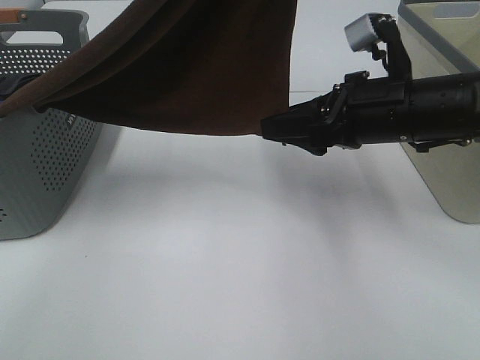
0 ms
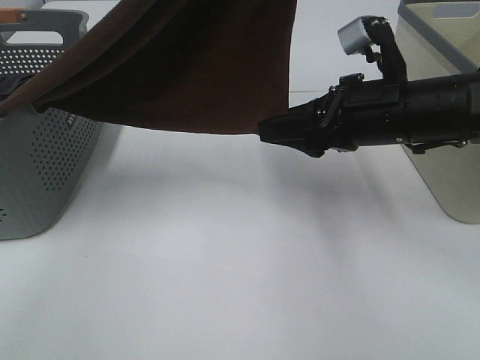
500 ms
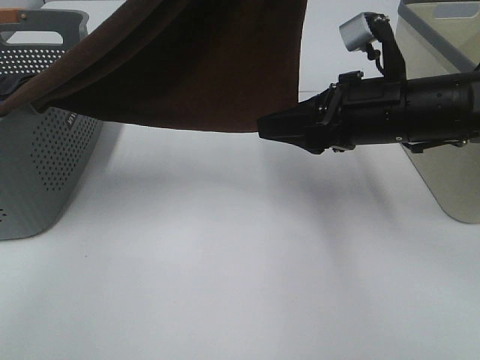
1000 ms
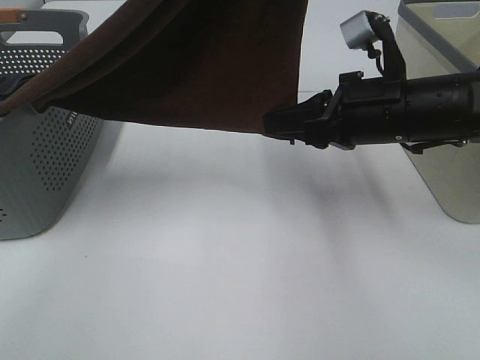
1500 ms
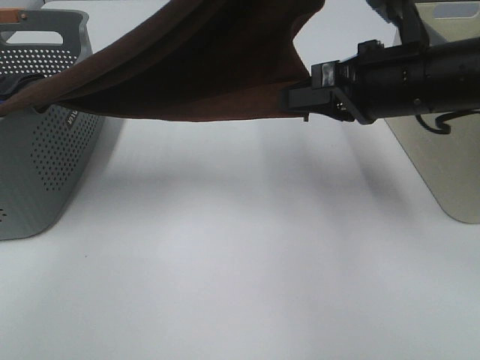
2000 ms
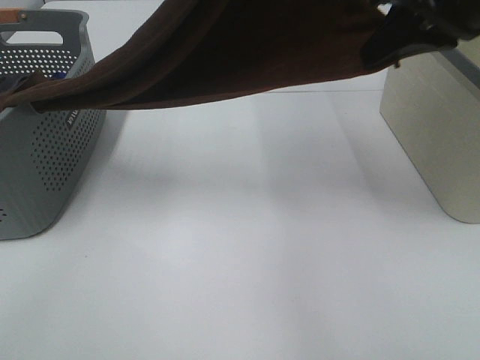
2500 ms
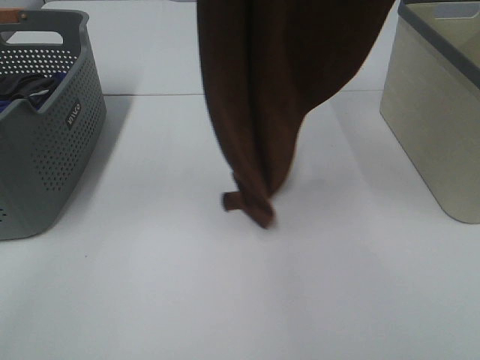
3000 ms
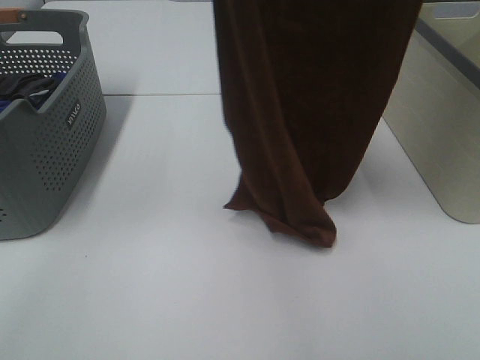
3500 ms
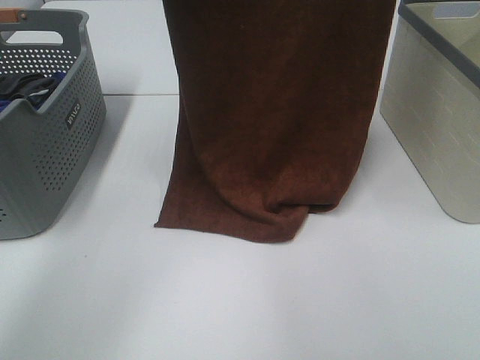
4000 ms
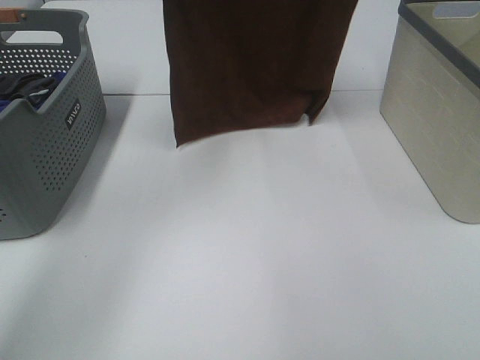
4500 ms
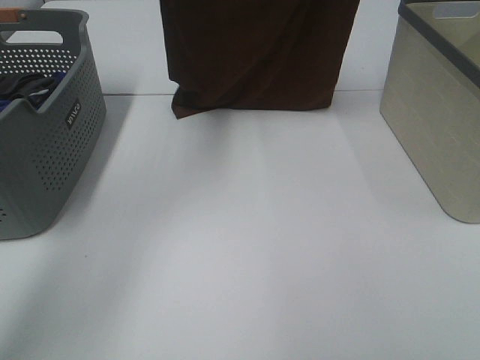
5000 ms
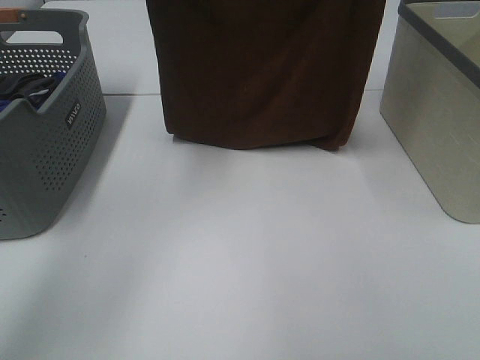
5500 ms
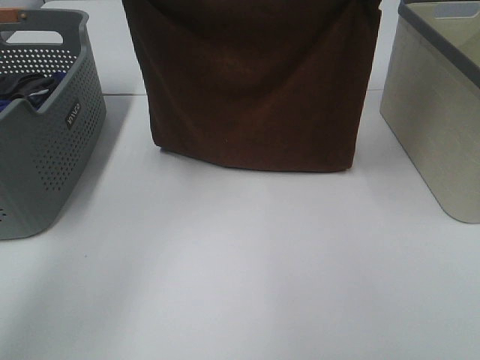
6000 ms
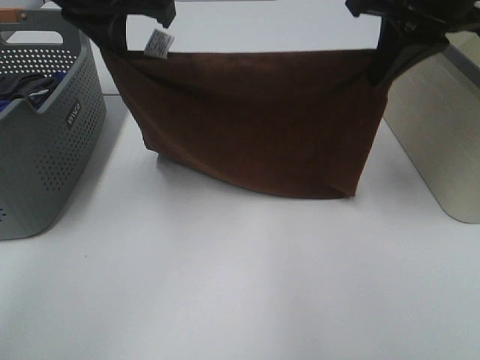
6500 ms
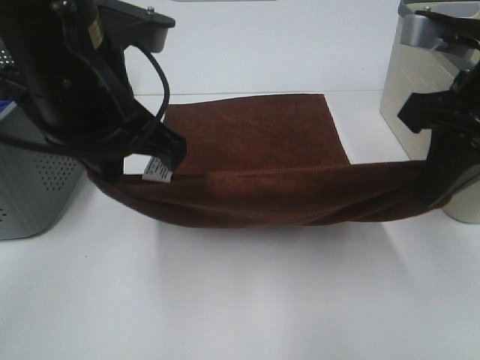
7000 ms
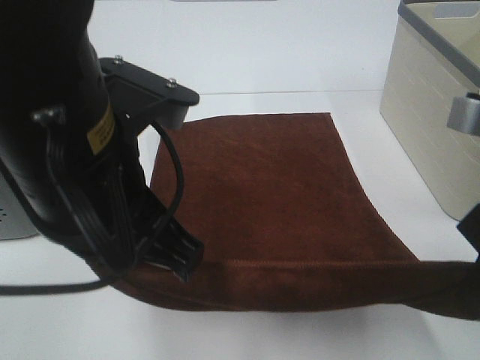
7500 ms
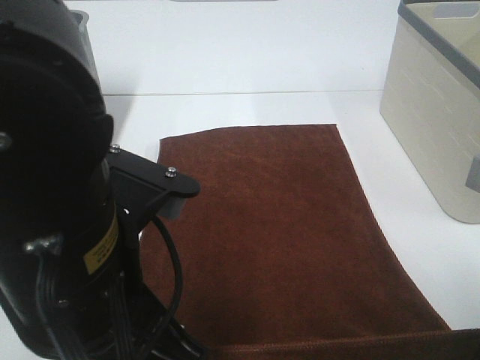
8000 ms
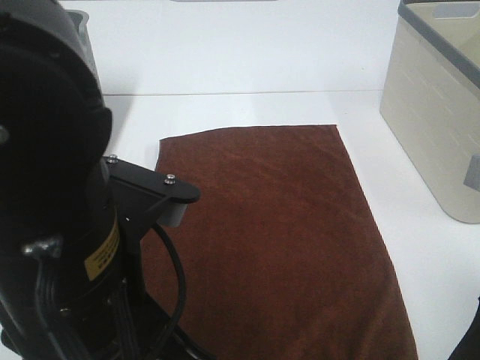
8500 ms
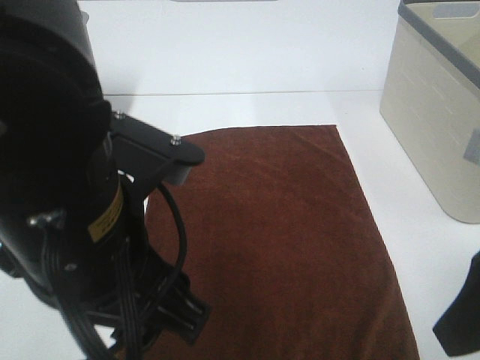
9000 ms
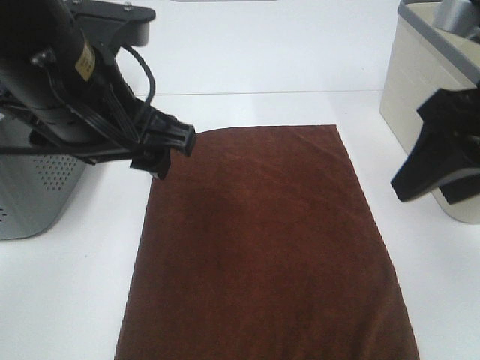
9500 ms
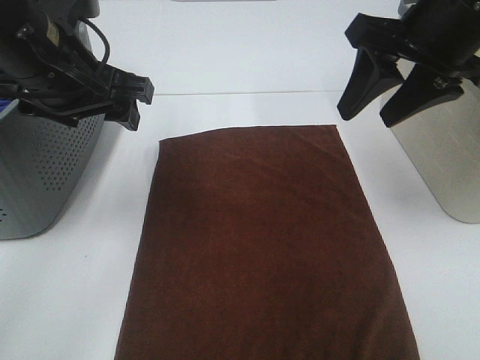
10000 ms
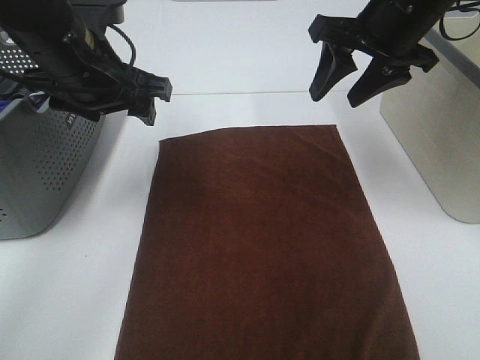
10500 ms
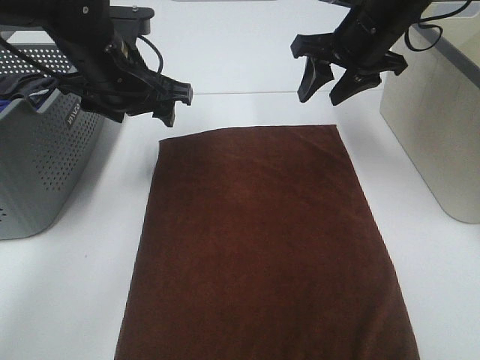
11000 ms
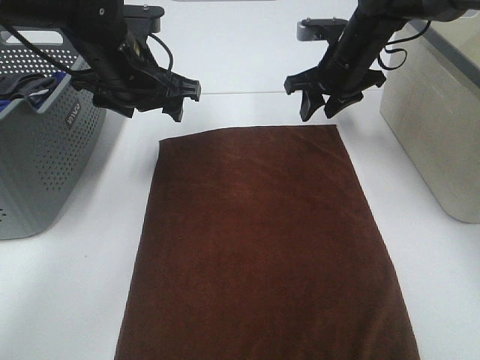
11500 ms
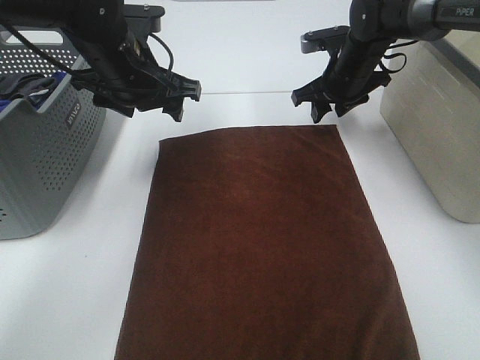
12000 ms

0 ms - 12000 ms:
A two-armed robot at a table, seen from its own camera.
Task of the whole recording: Remove the towel and place it.
Step, 1000 ms - 4500 ms: Left hand: spread the brown towel flat on the table.
Step, 1000 ms - 4500 ms: Right hand: spread the brown towel flat on the table.
0 ms - 2000 ms: The right gripper closes its fingers.
2000 ms - 4000 ms: The right gripper moves upward and forward, approximately 25 cm, while the left gripper heads to the left and forward, covering roughly 20 cm.
4000 ms - 6000 ms: Both grippers travel together downward, about 10 cm.
6000 ms - 8000 ms: The grippers both shift backward and downward by some 30 cm.
8000 ms - 10000 ms: The left gripper moves forward and to the left, some 20 cm, and opens up. Meanwhile the right gripper travels forward by roughly 20 cm, and opens up.
10000 ms - 12000 ms: The left gripper travels forward by approximately 10 cm. Meanwhile the right gripper heads forward and downward, covering approximately 25 cm.

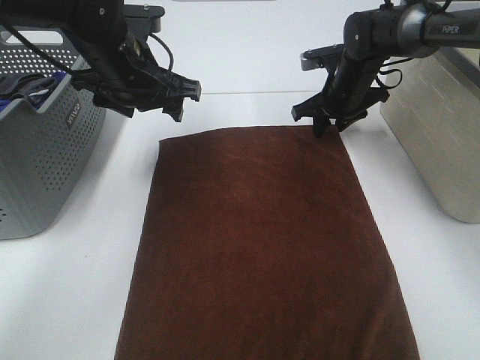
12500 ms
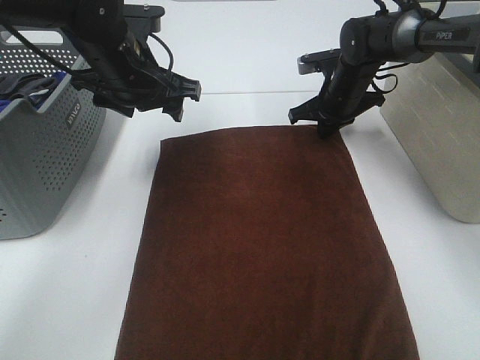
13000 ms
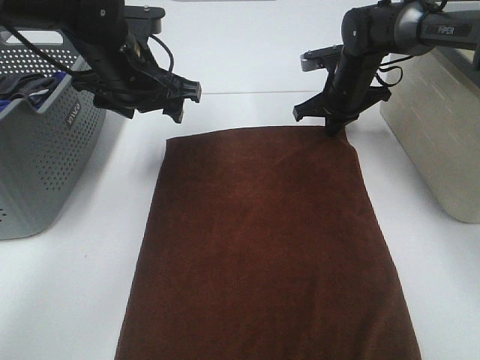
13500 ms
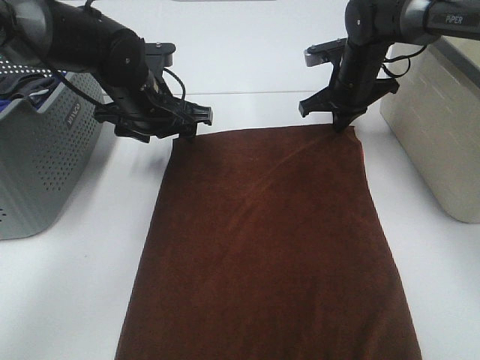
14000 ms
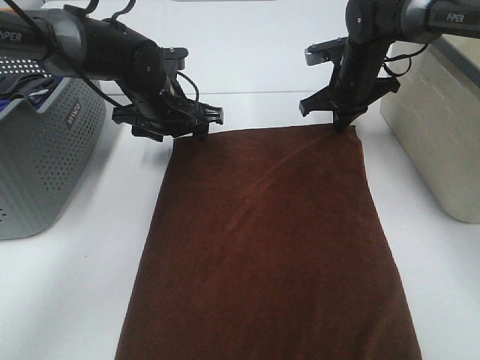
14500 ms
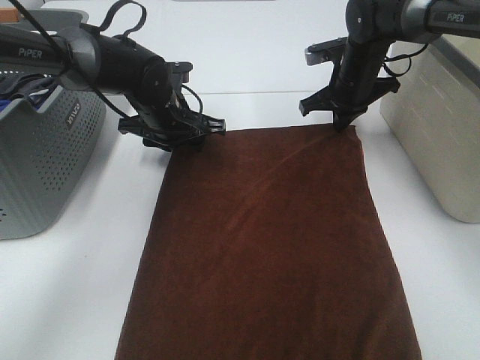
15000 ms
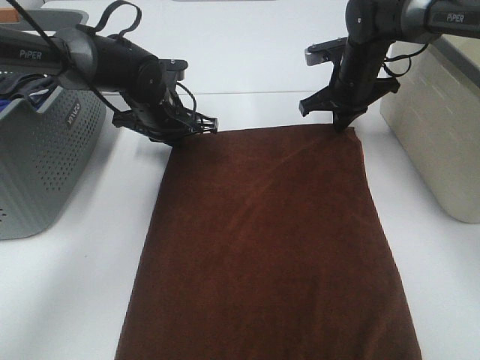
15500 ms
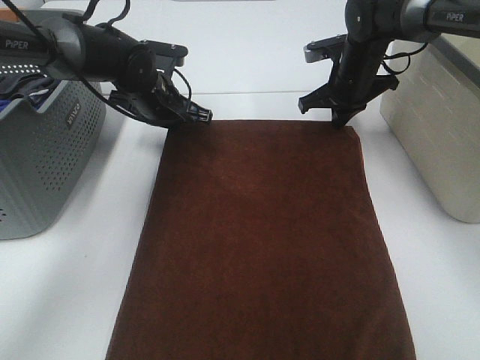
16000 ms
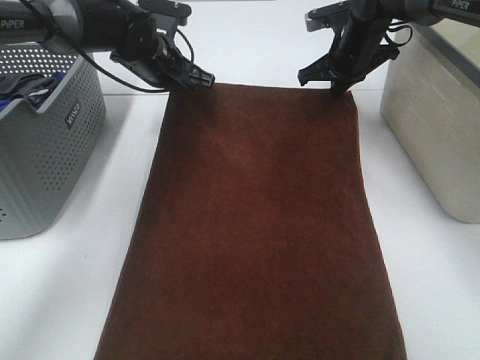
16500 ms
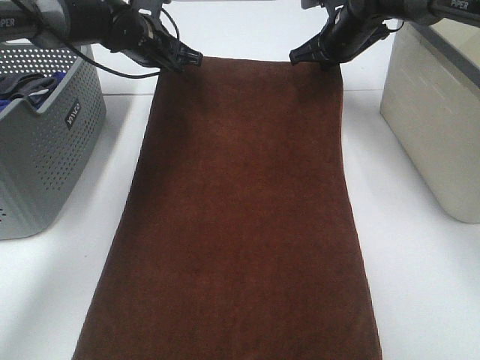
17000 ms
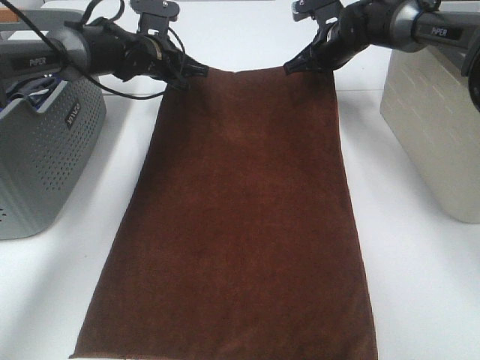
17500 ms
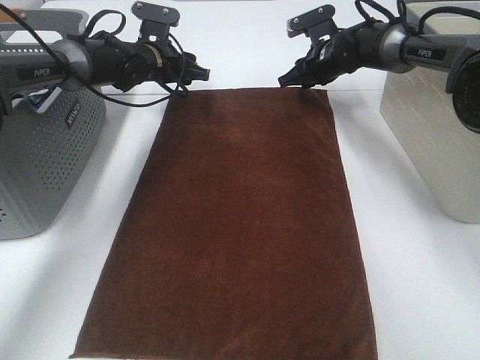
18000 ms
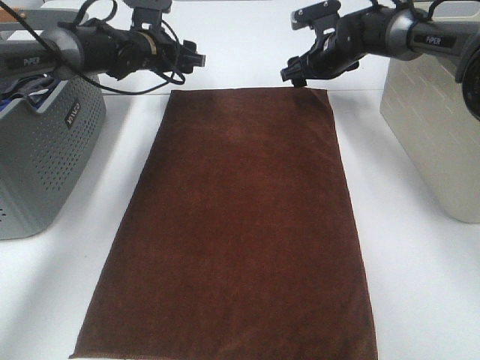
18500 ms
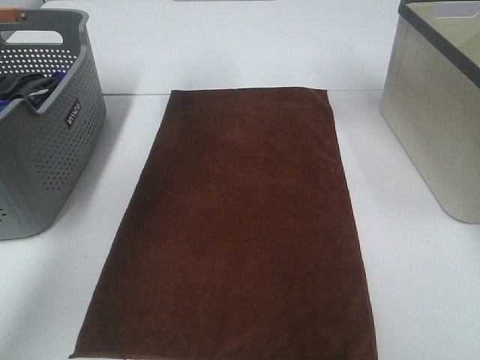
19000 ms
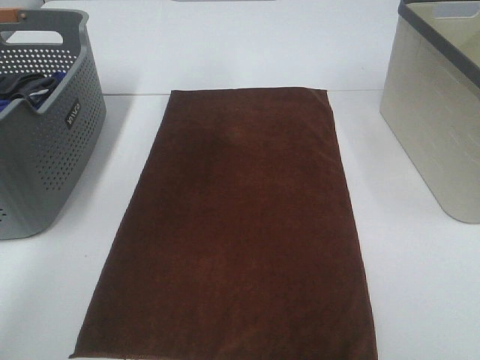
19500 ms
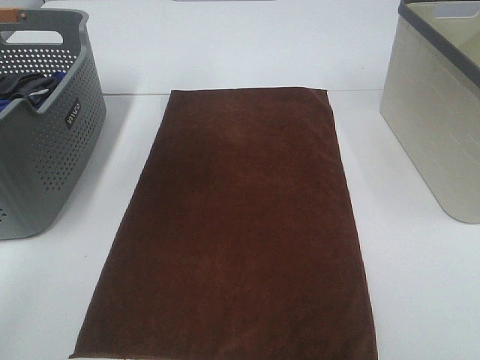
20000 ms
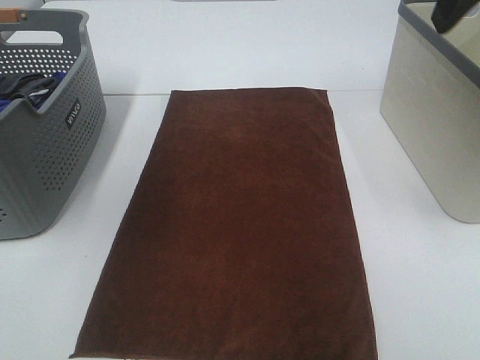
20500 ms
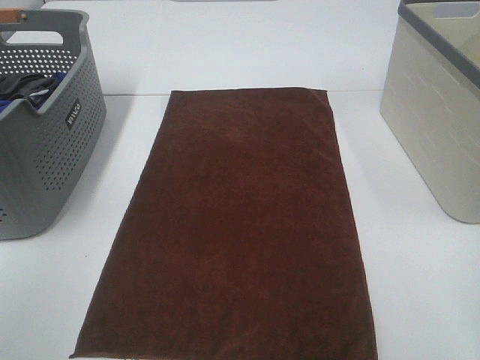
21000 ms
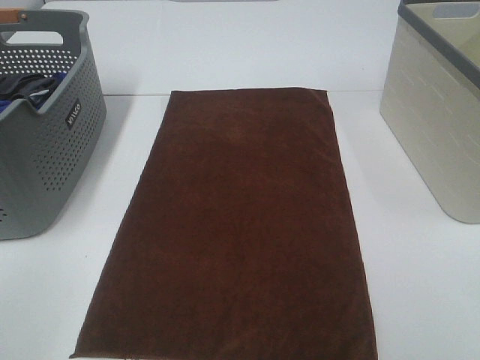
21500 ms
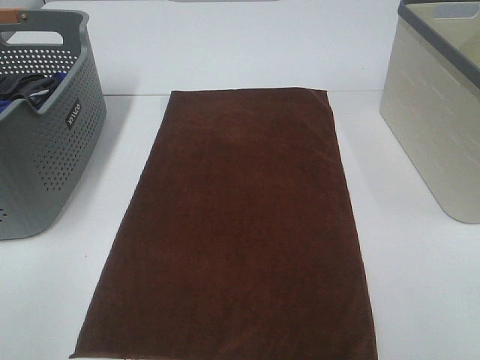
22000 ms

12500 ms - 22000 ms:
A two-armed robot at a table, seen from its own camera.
Task of the whole recording: Remove the towel and place it.
12500 ms - 14500 ms: The left gripper is displaced downward by approximately 10 cm. Meanwhile the right gripper closes.
14500 ms - 16500 ms: The left gripper goes about 5 cm forward, and closes up.
16500 ms - 18000 ms: The right gripper changes place by roughly 5 cm, and opens; the left gripper moves forward, approximately 5 cm, and opens its fingers.
18000 ms - 20000 ms: Both grippers move upward and backward, some 35 cm.
20000 ms - 22000 ms: The left gripper travels backward and downward by roughly 35 cm.

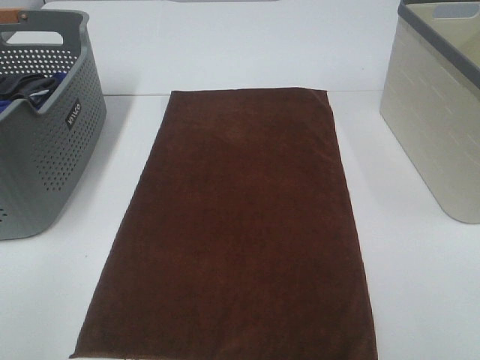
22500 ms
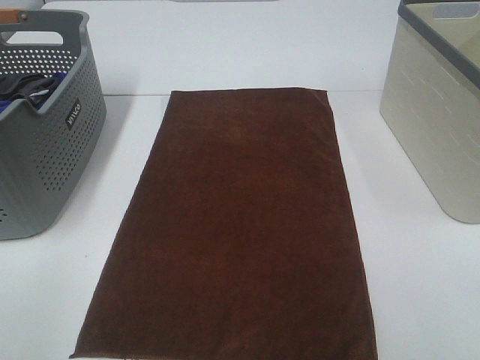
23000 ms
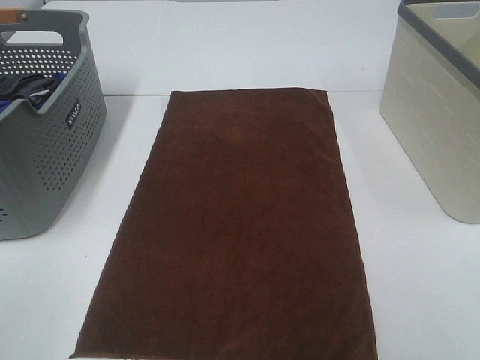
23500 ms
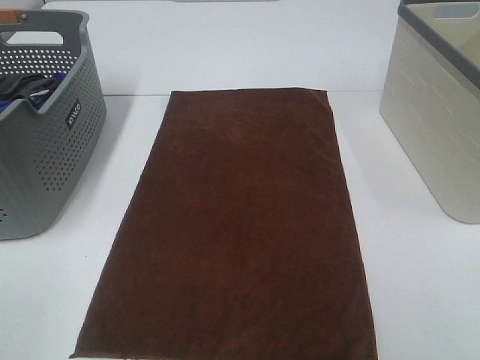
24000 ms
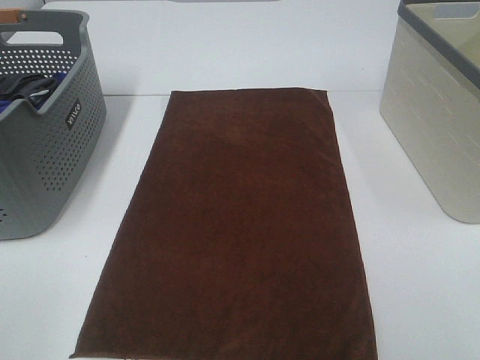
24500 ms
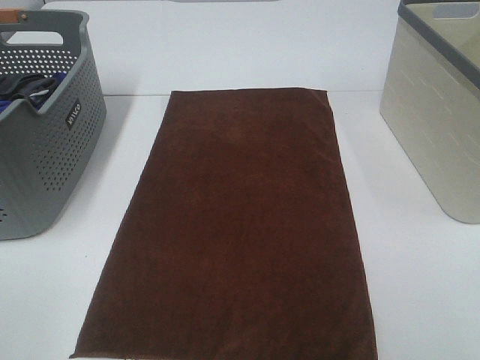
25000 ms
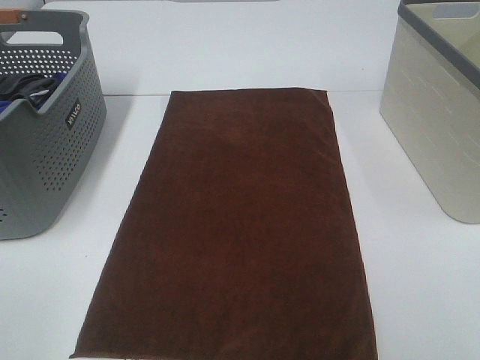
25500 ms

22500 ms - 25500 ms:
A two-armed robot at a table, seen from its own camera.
Task of the whole recording: Remove the towel and place it.
24000 ms - 25500 ms: The two grippers keep their place.

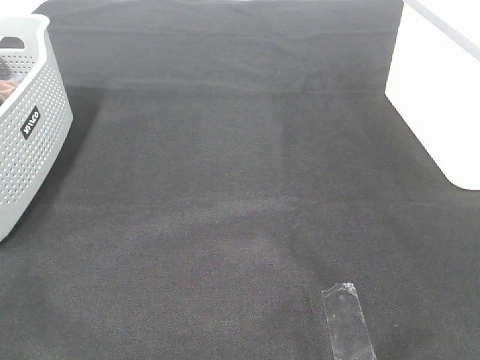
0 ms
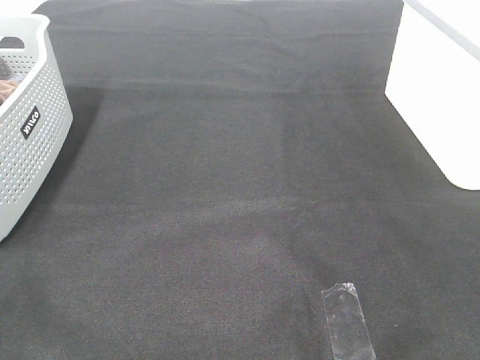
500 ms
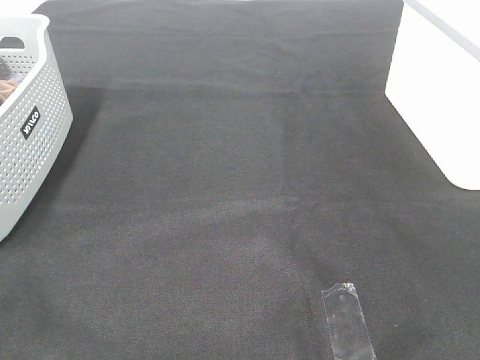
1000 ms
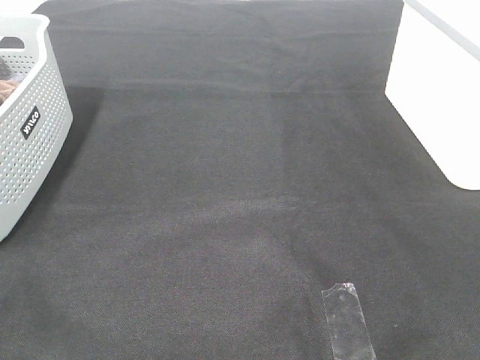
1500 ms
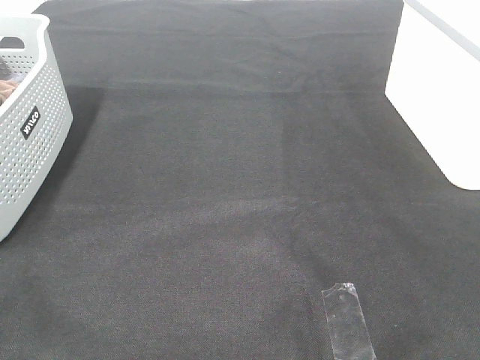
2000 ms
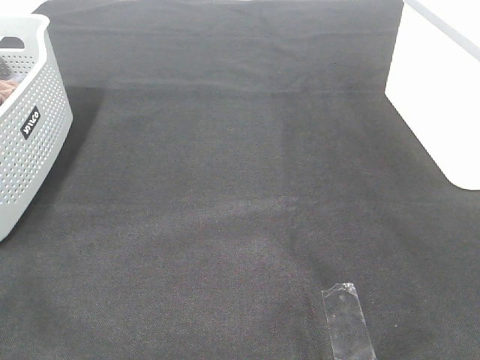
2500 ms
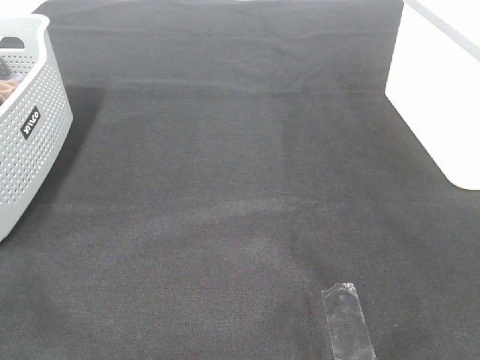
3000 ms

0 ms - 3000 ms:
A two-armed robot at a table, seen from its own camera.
Task of the whole recording: Remove the towel and place it.
0 ms - 3000 ms: The two grippers keep their place.
